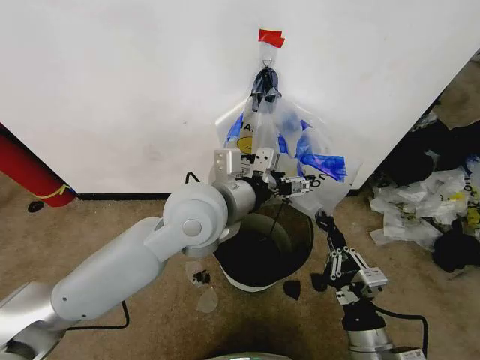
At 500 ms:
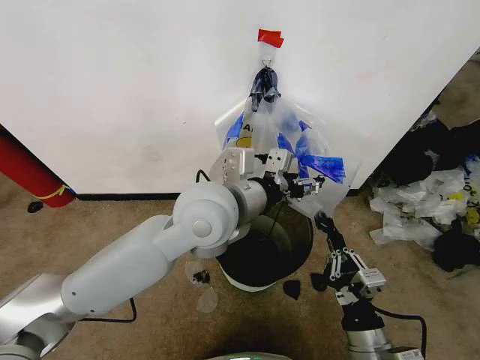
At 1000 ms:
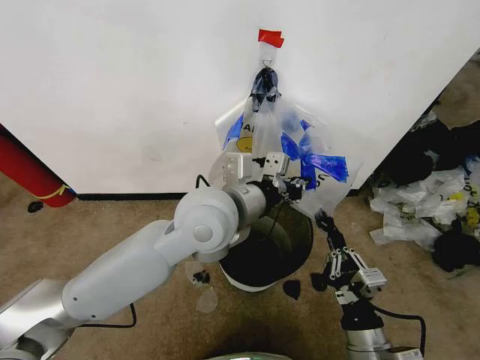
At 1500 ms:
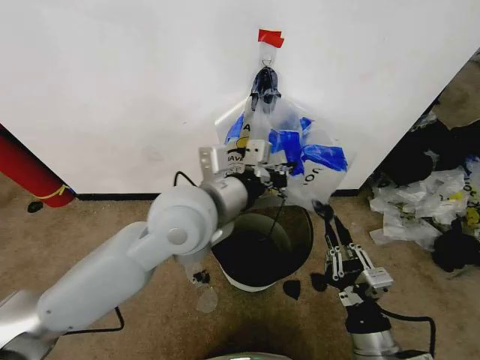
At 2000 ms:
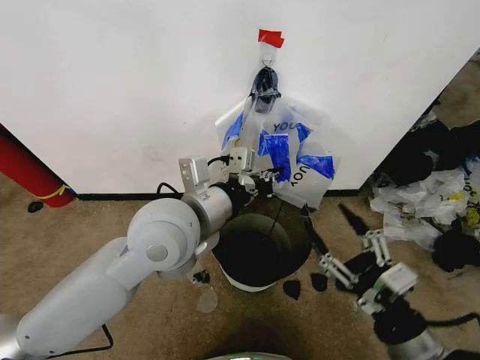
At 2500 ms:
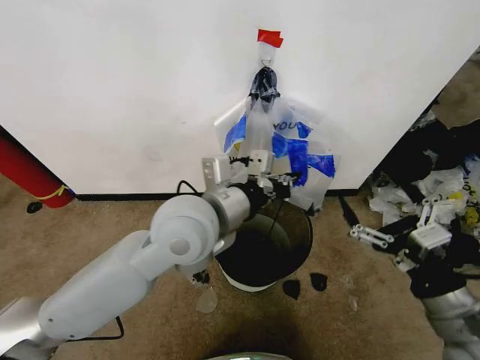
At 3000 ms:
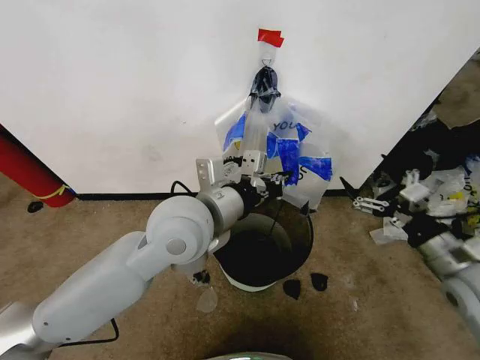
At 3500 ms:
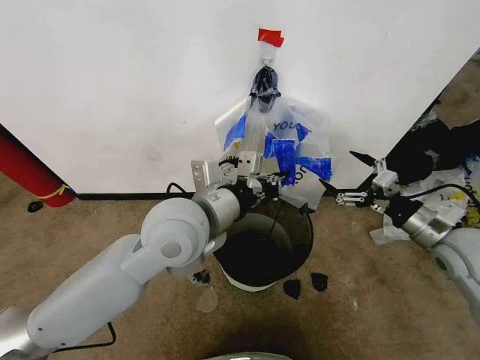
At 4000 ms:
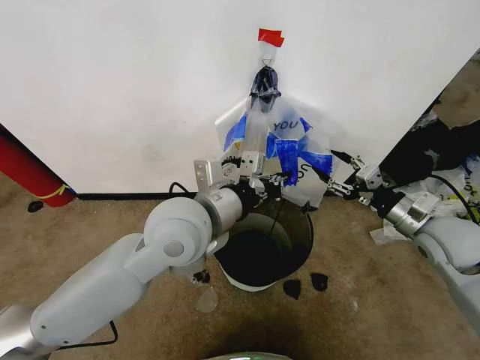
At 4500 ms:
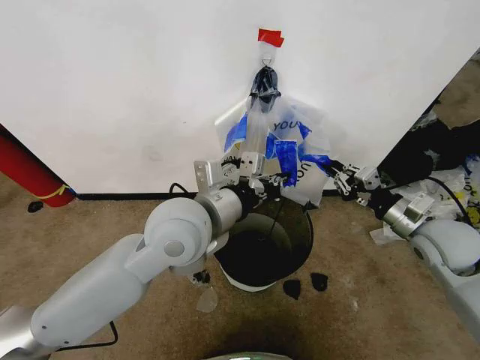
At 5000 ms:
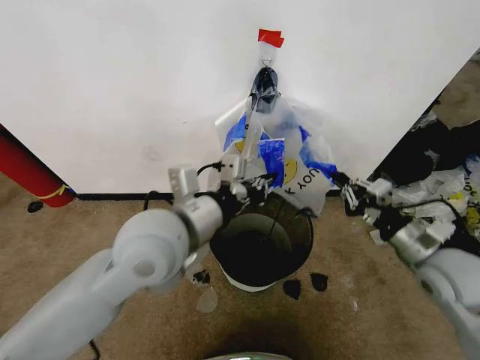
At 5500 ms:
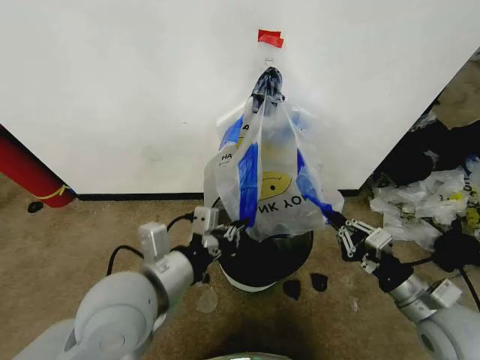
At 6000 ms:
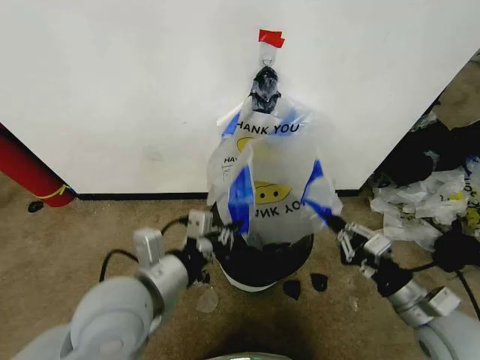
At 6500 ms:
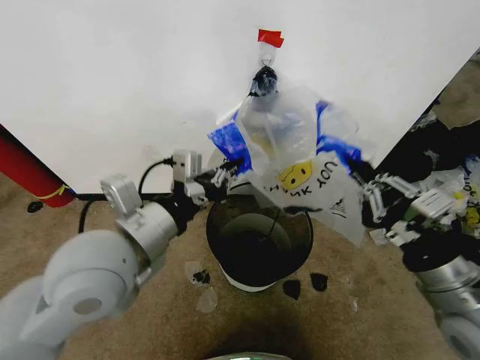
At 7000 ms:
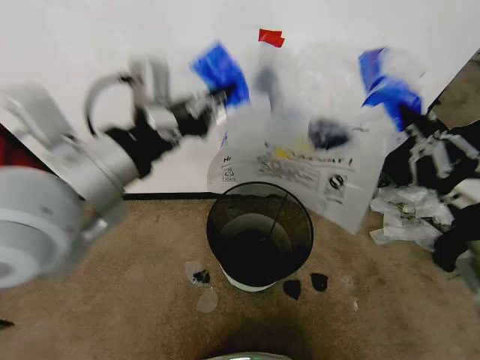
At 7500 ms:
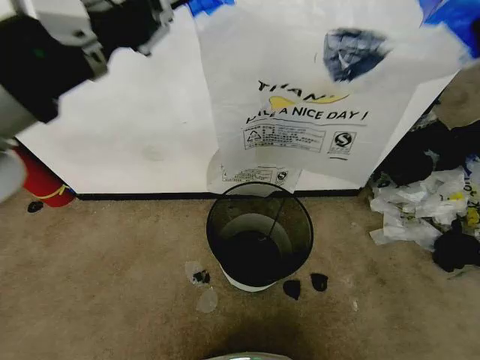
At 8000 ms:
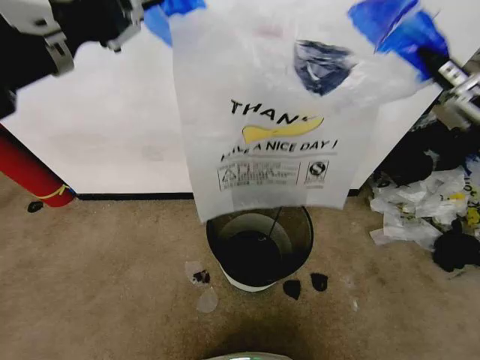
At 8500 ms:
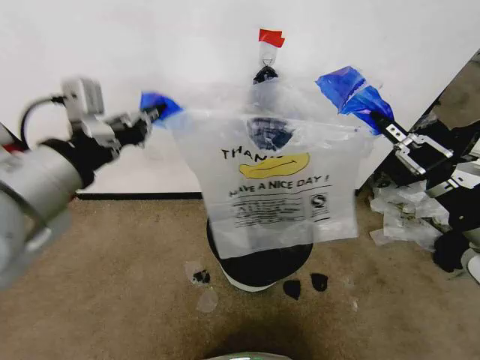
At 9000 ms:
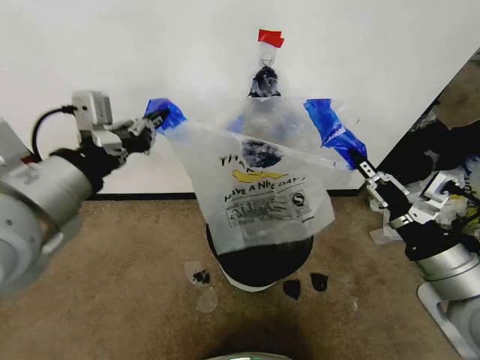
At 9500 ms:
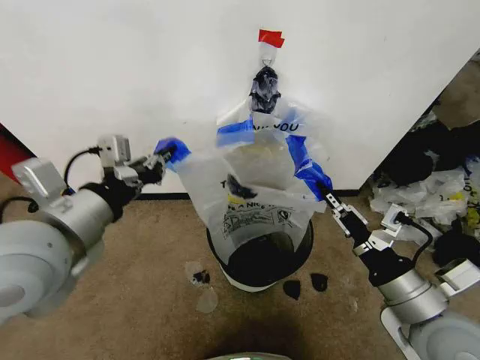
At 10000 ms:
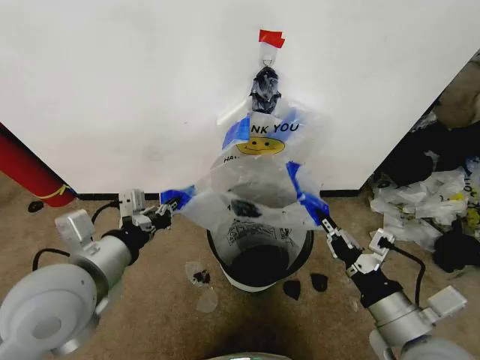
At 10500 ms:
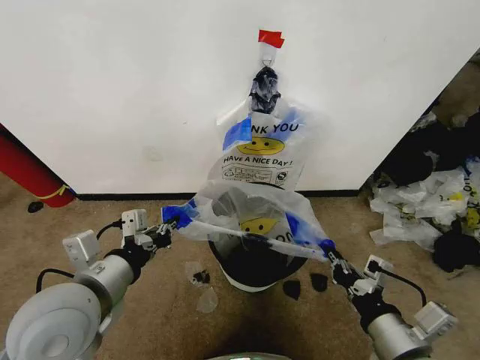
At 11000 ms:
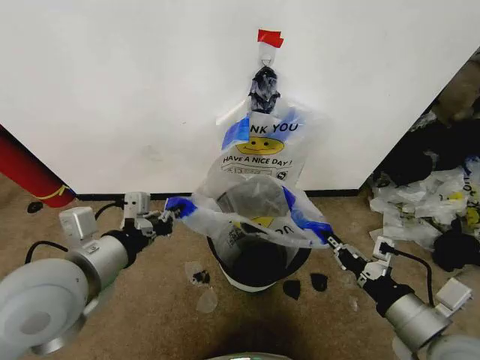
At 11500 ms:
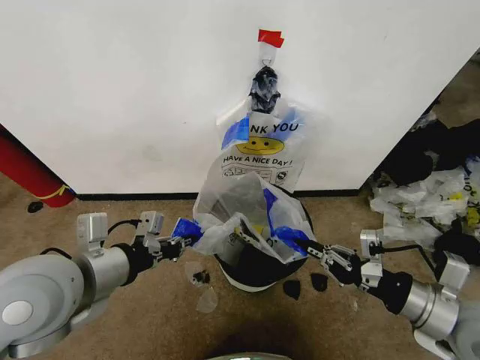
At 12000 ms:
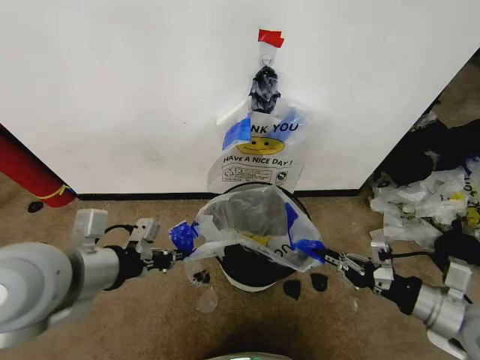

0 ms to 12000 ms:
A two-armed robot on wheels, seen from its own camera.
Task of the whole recording: Pick up the garbage bag from the wall and place it over the trash bin.
0 ms to 2000 ms: The left gripper changes place by about 5 cm, and closes its fingers; the right gripper heads upward, covering roughly 5 cm, and opens.
2000 ms to 4000 ms: The right gripper goes about 25 cm forward and to the right, and opens, then closes again.
4000 ms to 6000 ms: The left gripper is displaced backward, to the left and downward by some 15 cm. Meanwhile the right gripper goes approximately 15 cm backward and downward, and closes up.
6000 ms to 8000 ms: The two grippers go about 25 cm upward.
8000 ms to 10000 ms: The left gripper moves downward, roughly 25 cm. The right gripper heads downward and to the left, covering roughly 20 cm.
10000 ms to 12000 ms: The right gripper heads to the right, covering some 10 cm.

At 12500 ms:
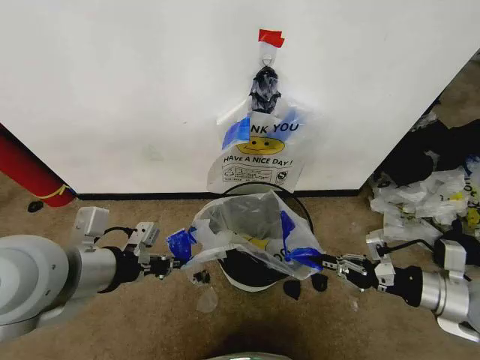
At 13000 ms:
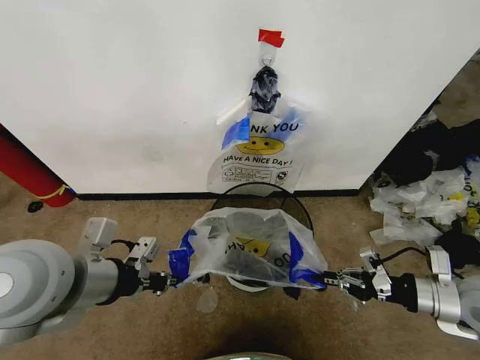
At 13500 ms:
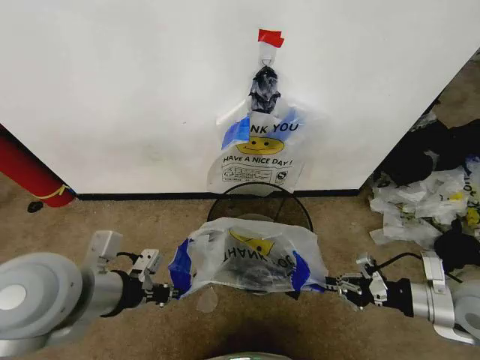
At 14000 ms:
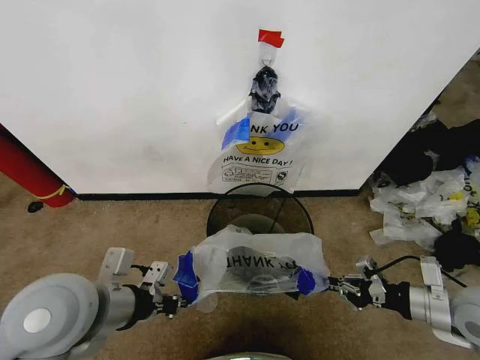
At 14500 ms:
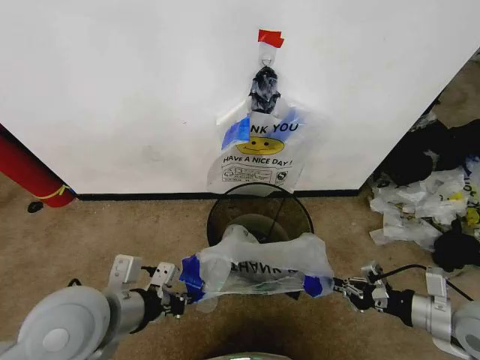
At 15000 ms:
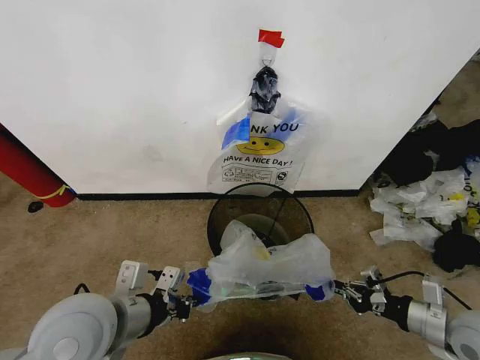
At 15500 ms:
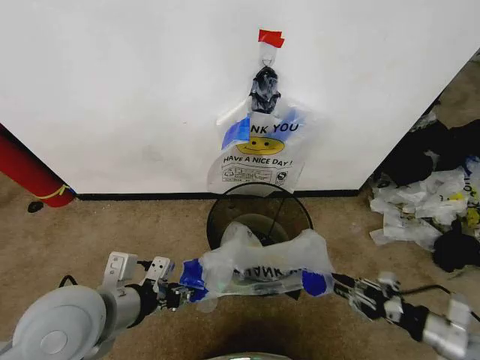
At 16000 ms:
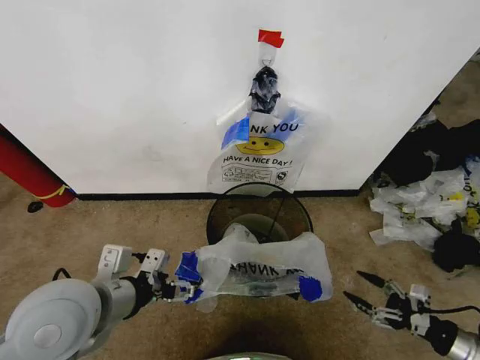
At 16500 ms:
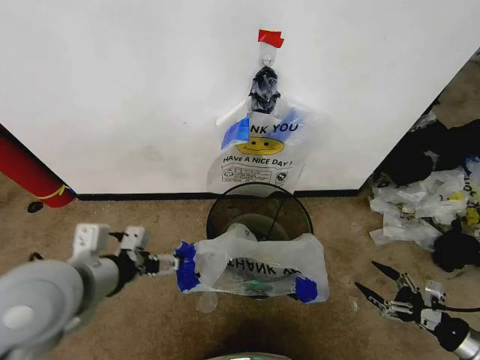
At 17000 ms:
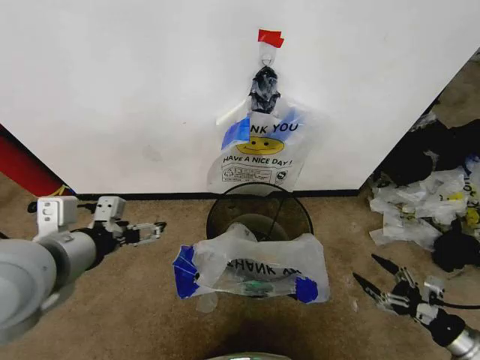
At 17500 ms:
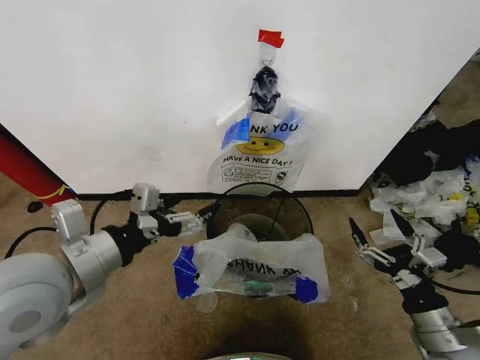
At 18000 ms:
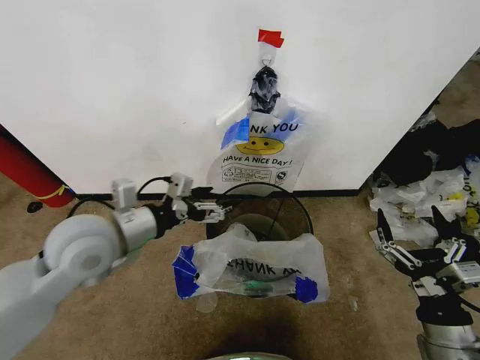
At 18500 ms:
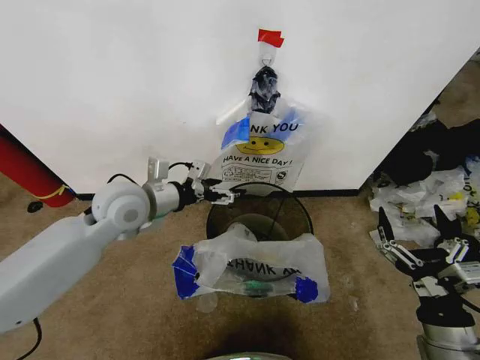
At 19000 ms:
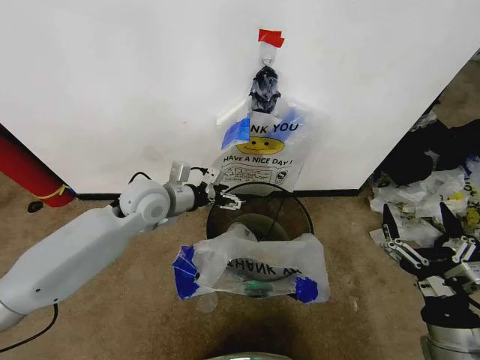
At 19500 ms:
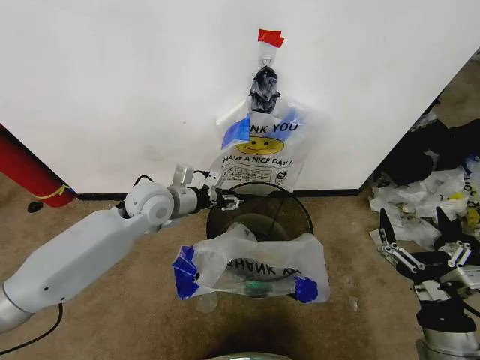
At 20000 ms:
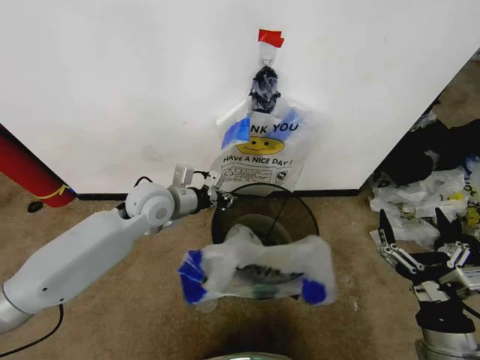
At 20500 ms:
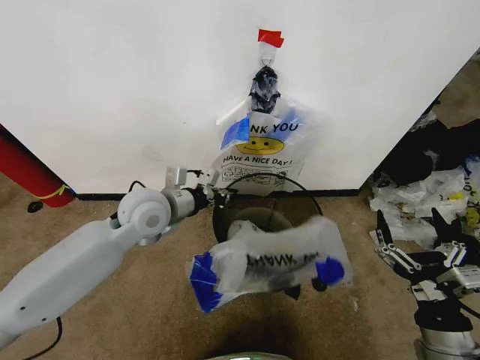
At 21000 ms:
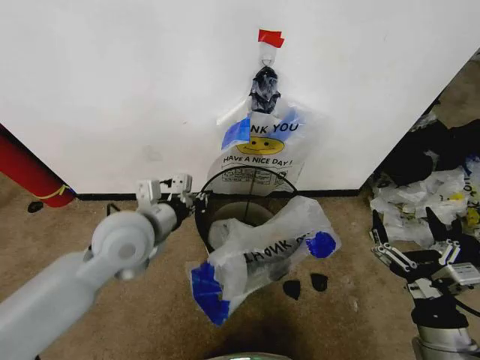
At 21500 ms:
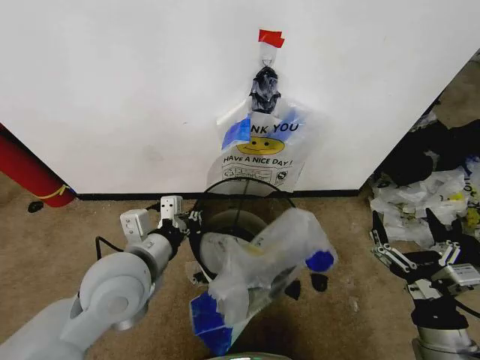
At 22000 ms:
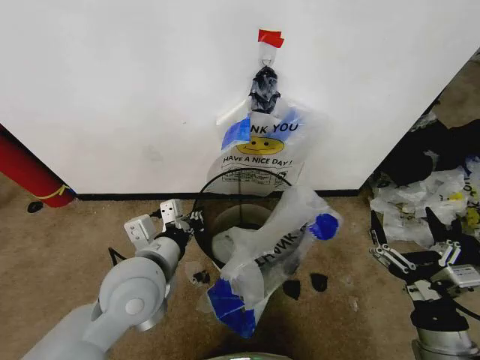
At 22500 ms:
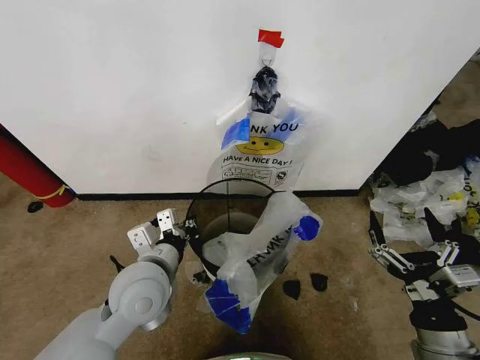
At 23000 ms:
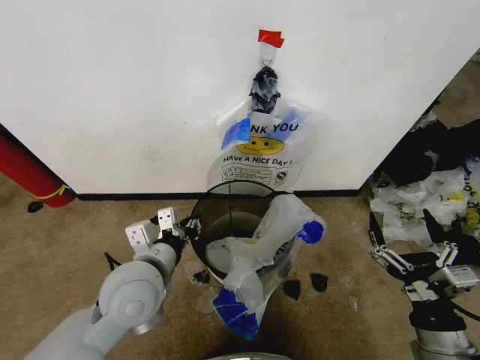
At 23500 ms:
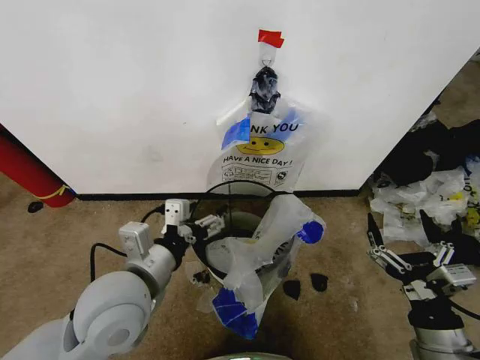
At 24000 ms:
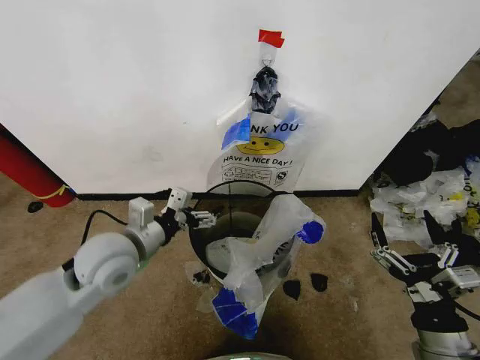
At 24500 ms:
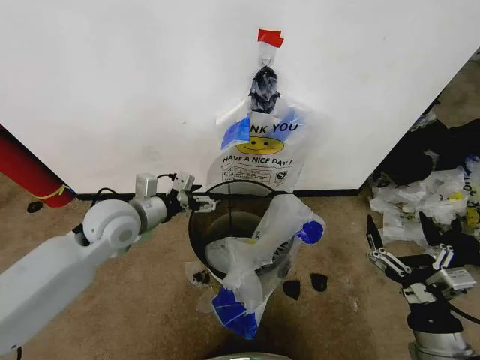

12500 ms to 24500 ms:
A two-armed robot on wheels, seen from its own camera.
Task of the whole recording: Pick up the garbage bag from the wall and place it over the trash bin.
12500 ms to 14500 ms: The grippers both shift downward by roughly 10 cm.
14500 ms to 16500 ms: The right gripper heads downward, to the right and backward, covering roughly 15 cm, and opens up. The left gripper ends up about 5 cm from where it was, and opens up.
16500 ms to 18500 ms: The left gripper shifts some 15 cm forward. Meanwhile the right gripper shifts about 20 cm to the left and upward.
18500 ms to 20500 ms: The left gripper closes.
20500 ms to 22500 ms: The left gripper moves backward and downward, about 15 cm.
22500 ms to 24500 ms: The left gripper moves forward and to the left, roughly 15 cm, and opens.

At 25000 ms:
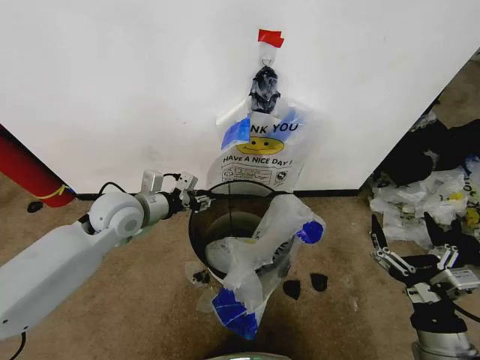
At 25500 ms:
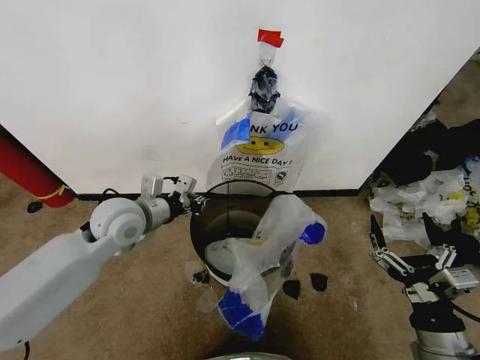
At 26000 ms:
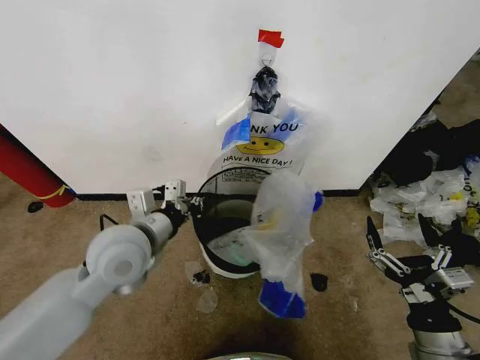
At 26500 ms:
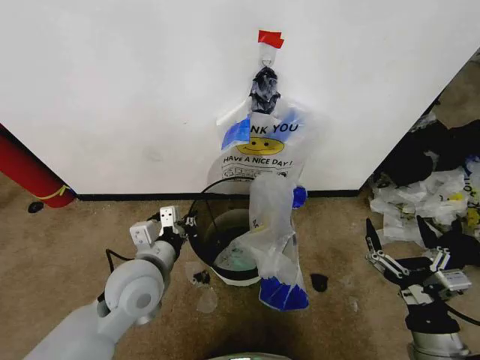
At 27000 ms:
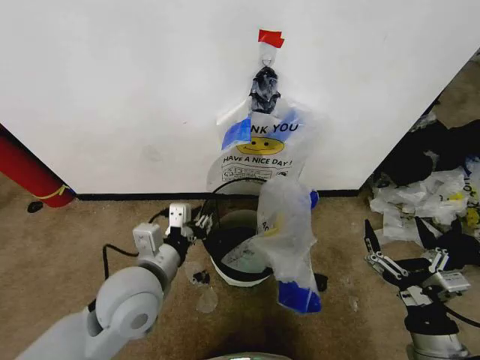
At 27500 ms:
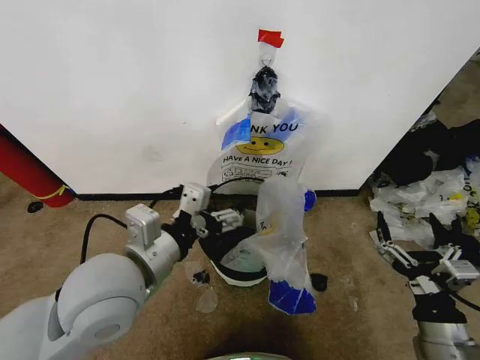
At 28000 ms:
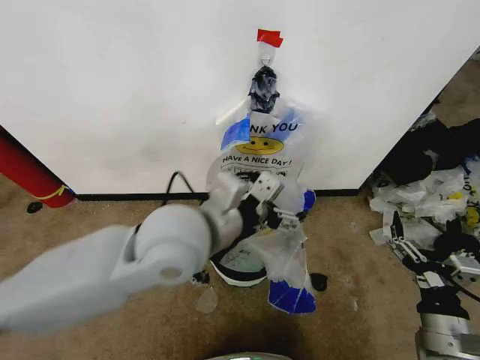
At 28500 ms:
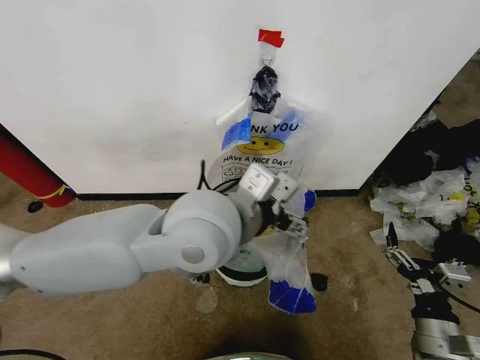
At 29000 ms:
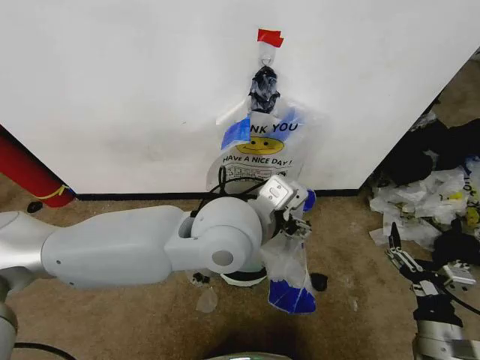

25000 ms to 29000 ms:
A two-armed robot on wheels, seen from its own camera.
Task of the whole recording: Pick up the garbage bag from the wall and place it over the trash bin.
25000 ms to 27000 ms: The left gripper heads backward and to the right, covering approximately 15 cm.
27000 ms to 29000 ms: The left gripper travels to the right and upward by some 20 cm, and opens.
